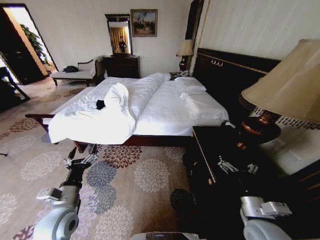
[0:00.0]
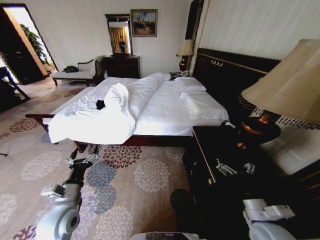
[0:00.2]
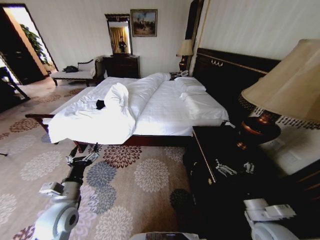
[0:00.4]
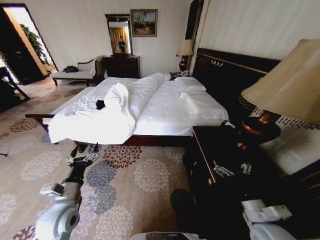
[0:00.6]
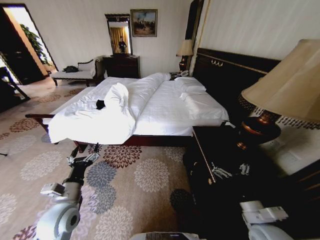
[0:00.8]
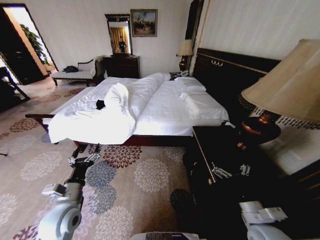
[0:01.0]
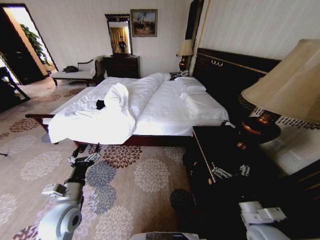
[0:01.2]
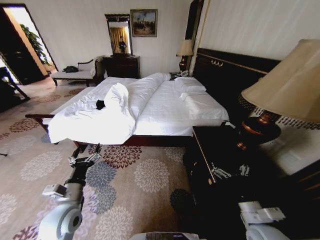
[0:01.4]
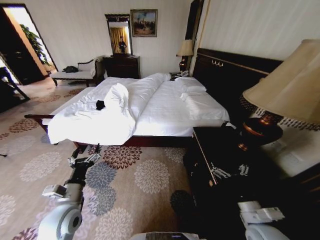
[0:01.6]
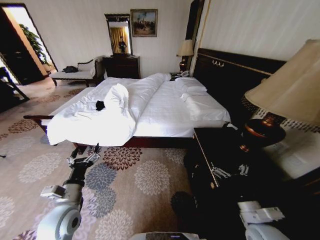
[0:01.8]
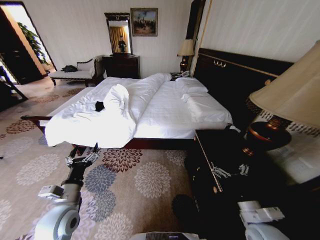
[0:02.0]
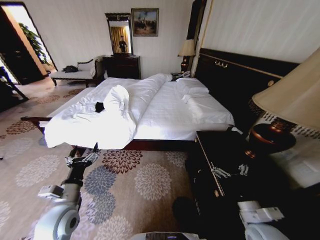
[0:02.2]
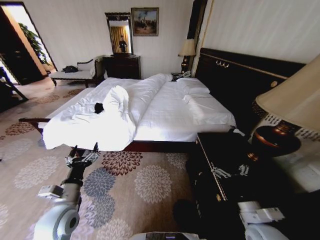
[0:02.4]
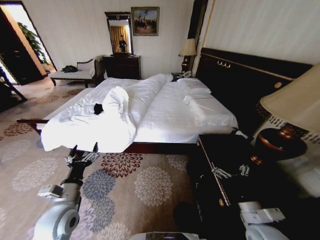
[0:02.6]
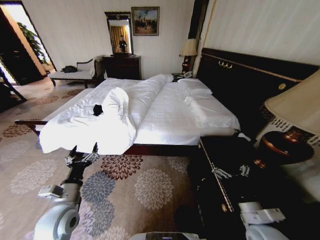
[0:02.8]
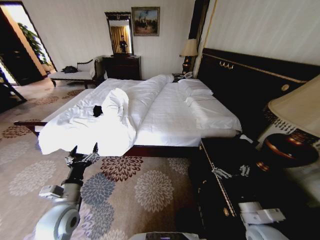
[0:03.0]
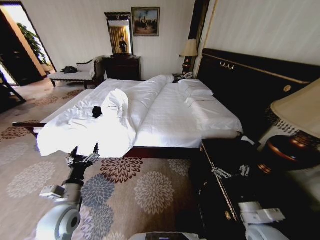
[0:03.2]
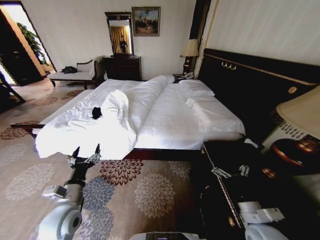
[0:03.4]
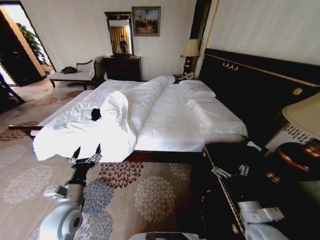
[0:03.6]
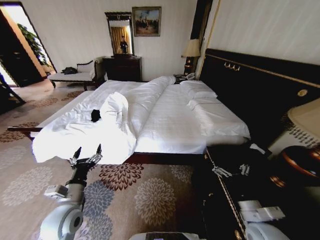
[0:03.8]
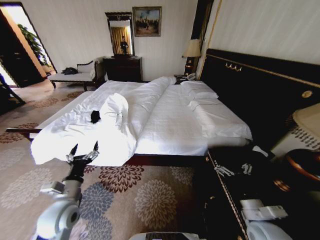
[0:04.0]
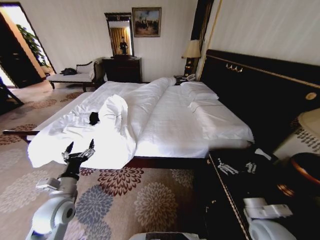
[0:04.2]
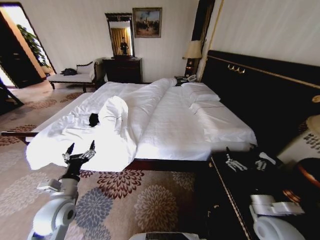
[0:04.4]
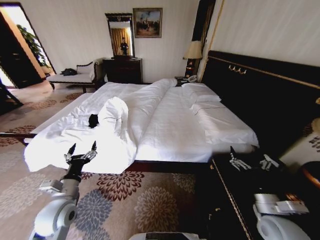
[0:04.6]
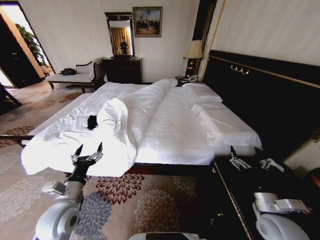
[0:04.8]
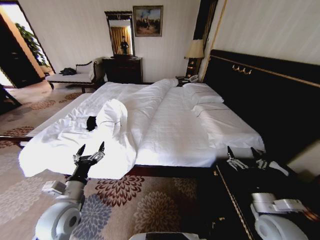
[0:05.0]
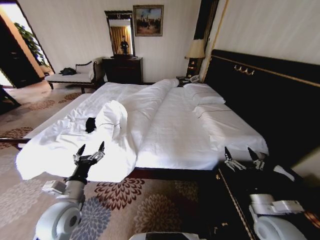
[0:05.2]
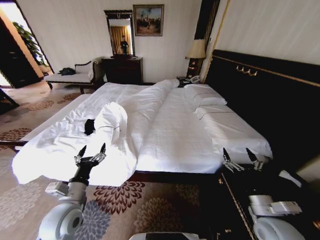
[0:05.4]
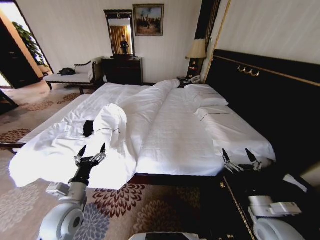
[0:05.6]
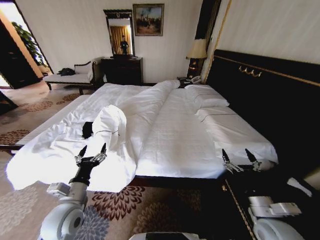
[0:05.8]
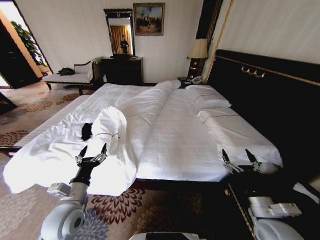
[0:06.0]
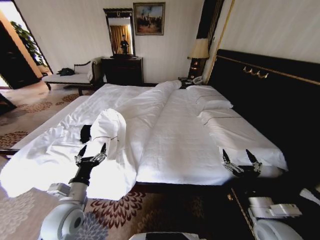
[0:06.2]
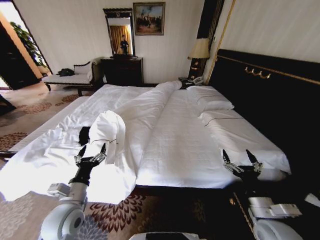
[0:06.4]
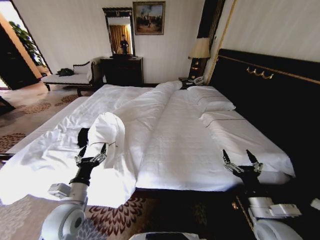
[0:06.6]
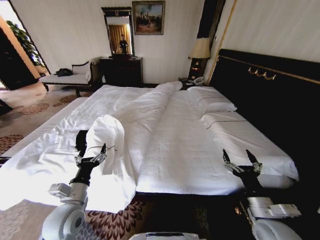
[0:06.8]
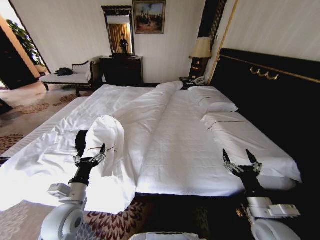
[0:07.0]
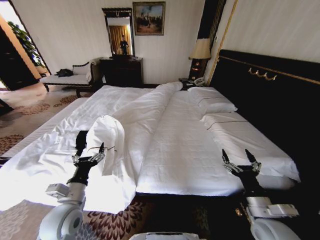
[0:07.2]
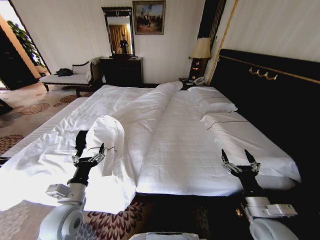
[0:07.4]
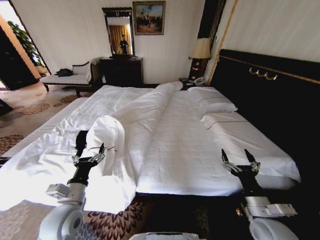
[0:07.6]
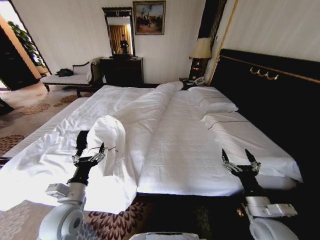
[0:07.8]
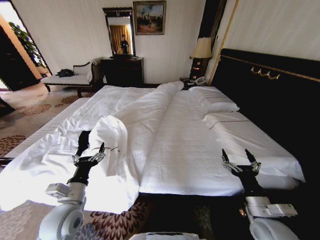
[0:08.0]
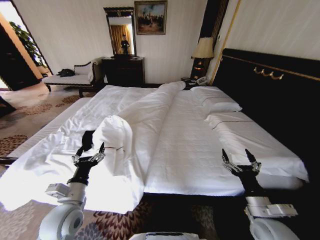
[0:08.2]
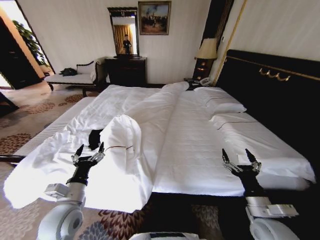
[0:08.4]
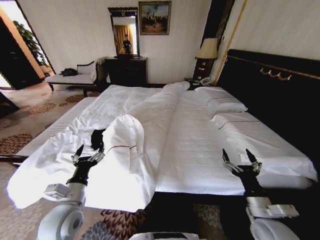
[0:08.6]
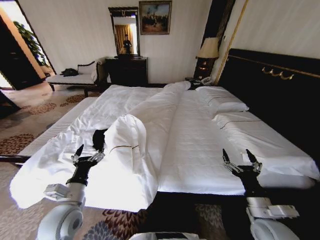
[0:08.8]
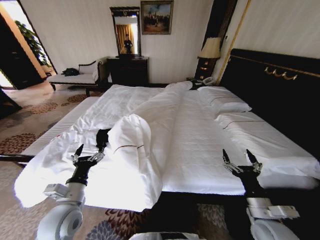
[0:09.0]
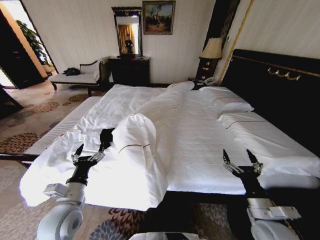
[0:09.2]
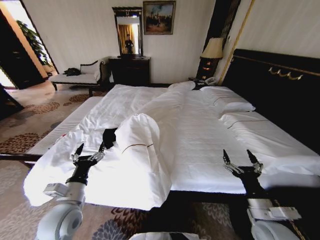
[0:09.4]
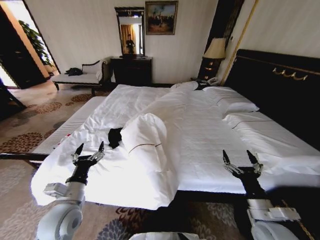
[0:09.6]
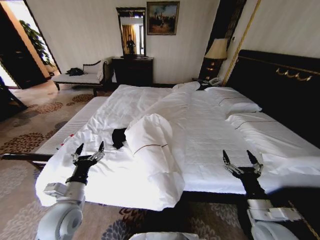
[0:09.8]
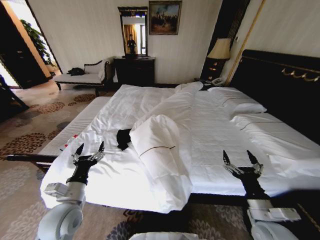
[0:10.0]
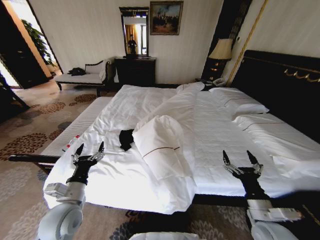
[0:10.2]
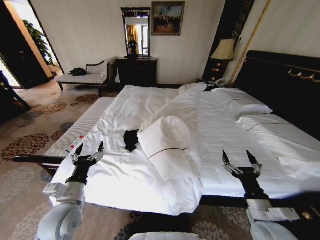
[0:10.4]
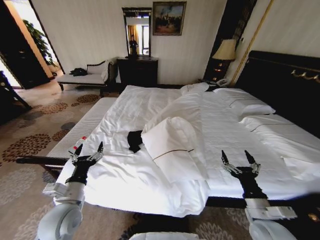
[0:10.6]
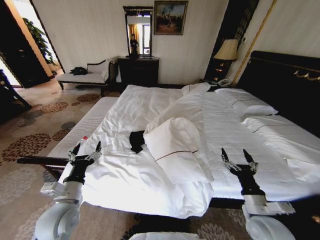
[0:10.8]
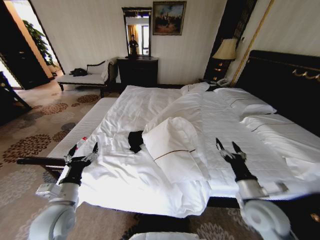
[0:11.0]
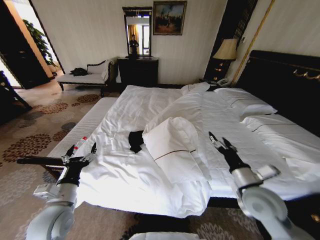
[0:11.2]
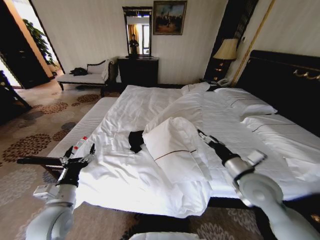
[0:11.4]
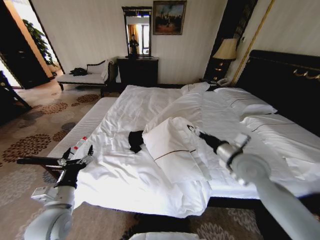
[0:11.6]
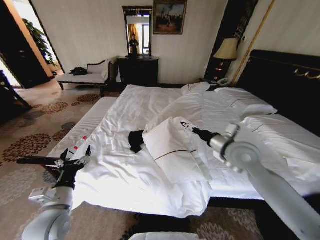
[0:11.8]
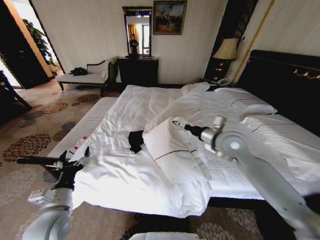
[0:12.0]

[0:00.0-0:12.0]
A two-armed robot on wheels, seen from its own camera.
Task of the whole recording: Fold the clothes on the bed.
0:10.4 to 0:12.0: The right gripper heads forward and upward, covering about 30 cm.

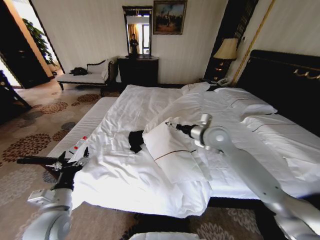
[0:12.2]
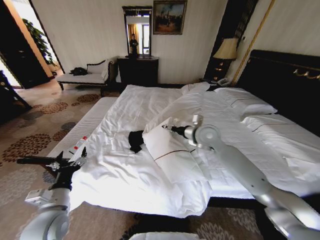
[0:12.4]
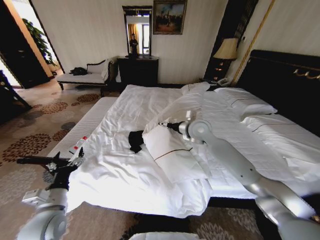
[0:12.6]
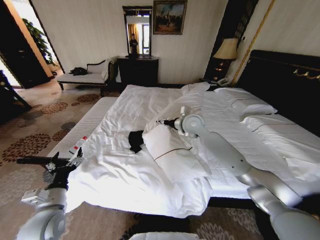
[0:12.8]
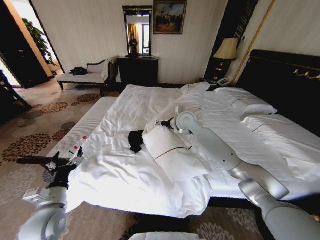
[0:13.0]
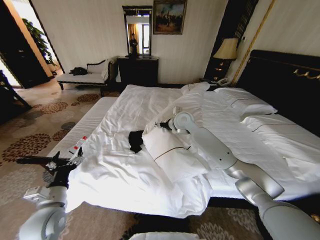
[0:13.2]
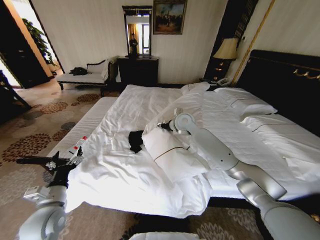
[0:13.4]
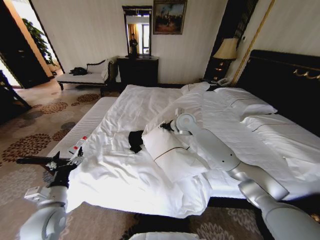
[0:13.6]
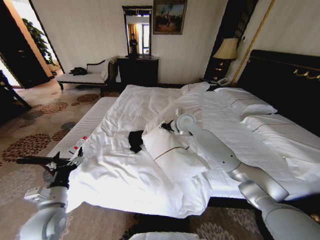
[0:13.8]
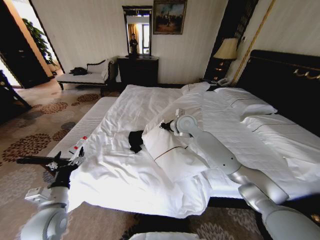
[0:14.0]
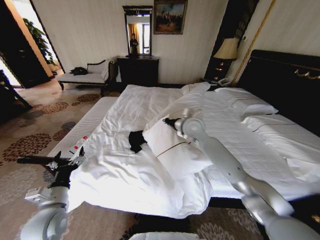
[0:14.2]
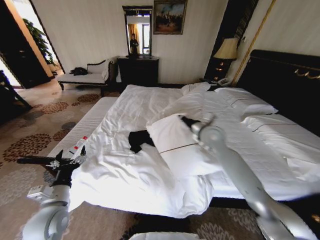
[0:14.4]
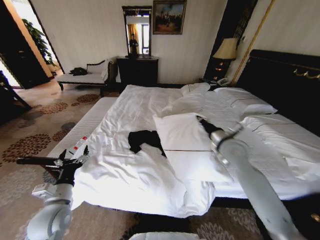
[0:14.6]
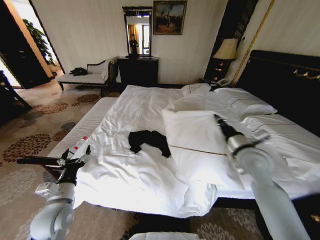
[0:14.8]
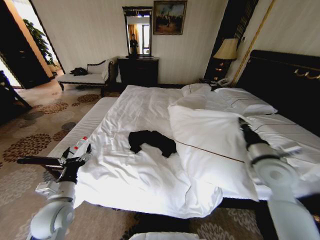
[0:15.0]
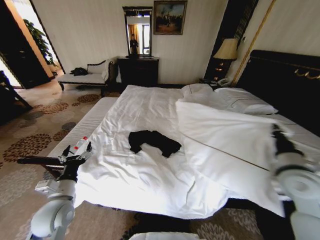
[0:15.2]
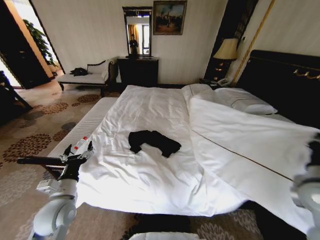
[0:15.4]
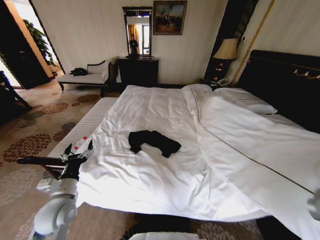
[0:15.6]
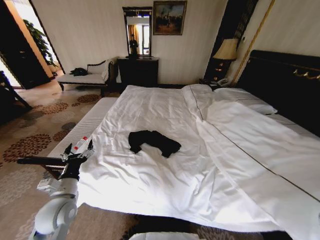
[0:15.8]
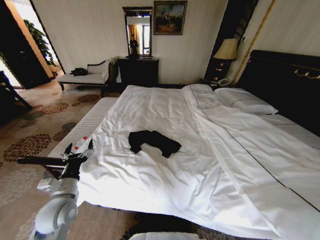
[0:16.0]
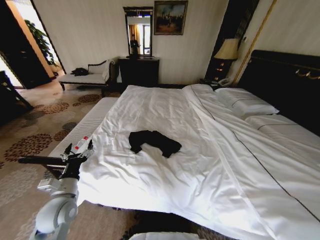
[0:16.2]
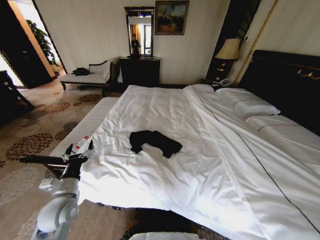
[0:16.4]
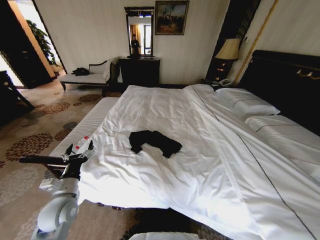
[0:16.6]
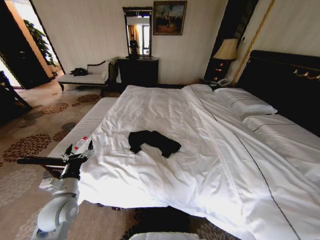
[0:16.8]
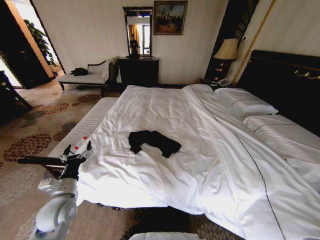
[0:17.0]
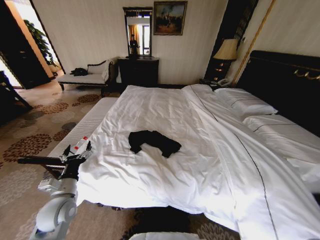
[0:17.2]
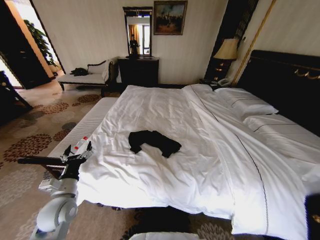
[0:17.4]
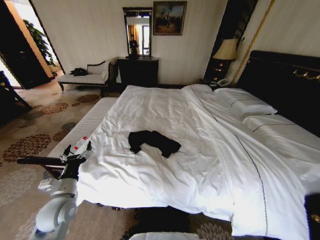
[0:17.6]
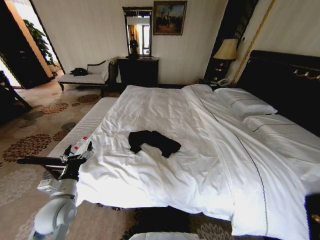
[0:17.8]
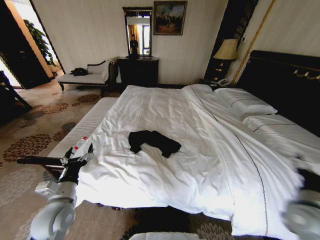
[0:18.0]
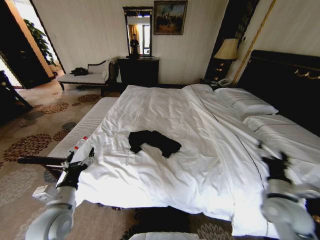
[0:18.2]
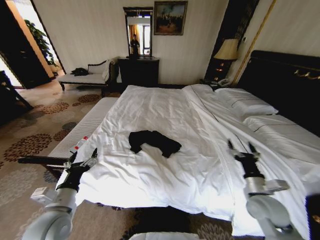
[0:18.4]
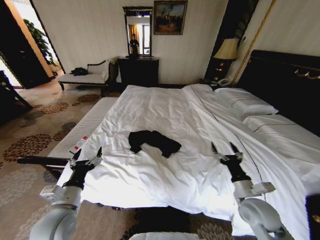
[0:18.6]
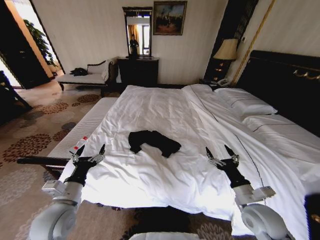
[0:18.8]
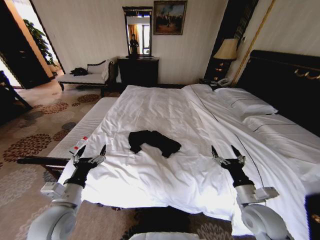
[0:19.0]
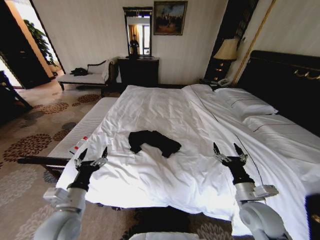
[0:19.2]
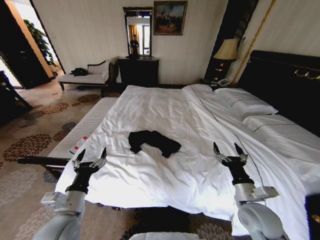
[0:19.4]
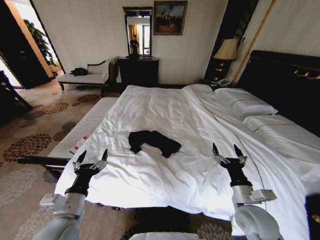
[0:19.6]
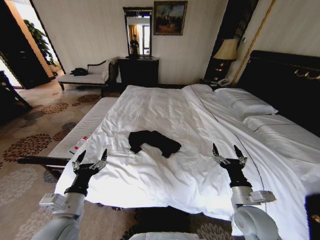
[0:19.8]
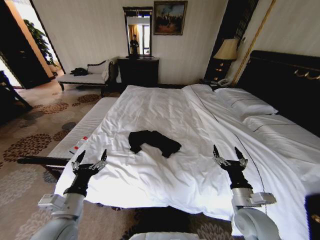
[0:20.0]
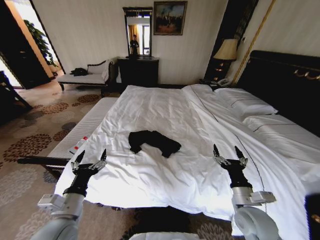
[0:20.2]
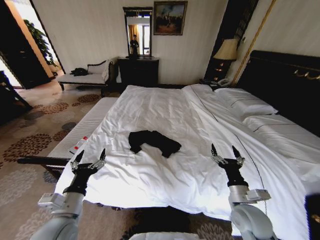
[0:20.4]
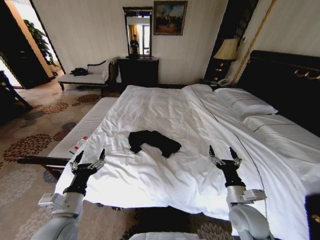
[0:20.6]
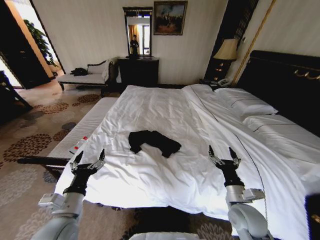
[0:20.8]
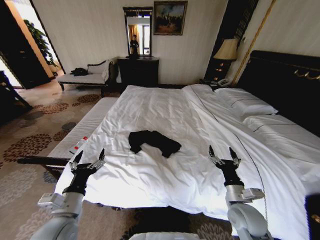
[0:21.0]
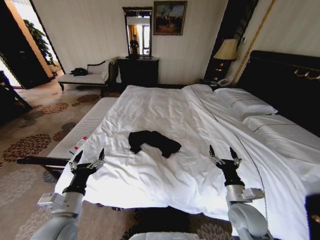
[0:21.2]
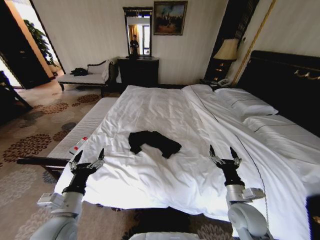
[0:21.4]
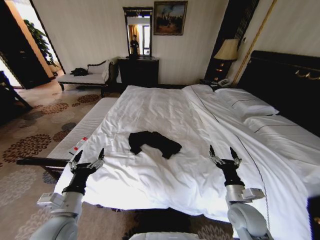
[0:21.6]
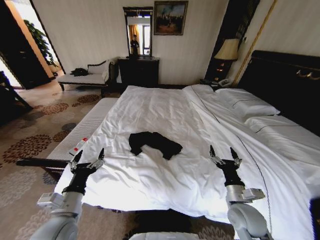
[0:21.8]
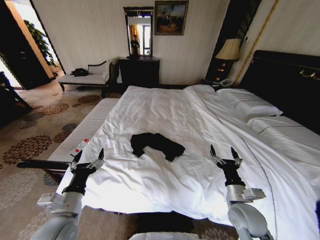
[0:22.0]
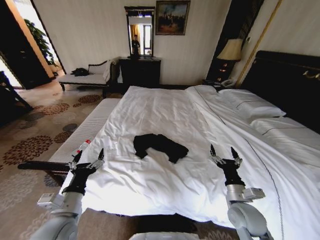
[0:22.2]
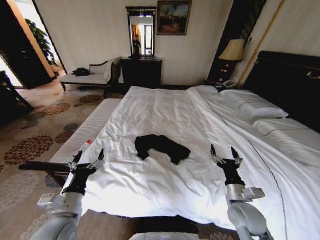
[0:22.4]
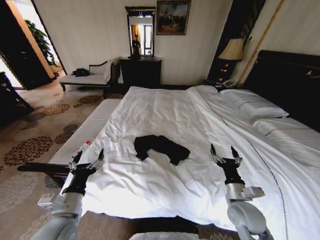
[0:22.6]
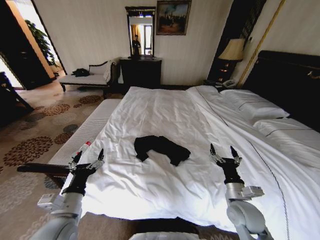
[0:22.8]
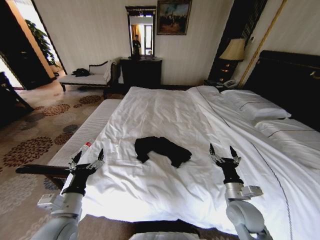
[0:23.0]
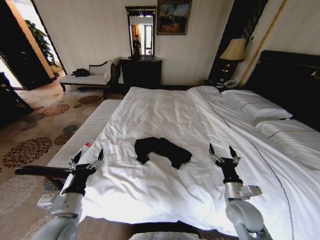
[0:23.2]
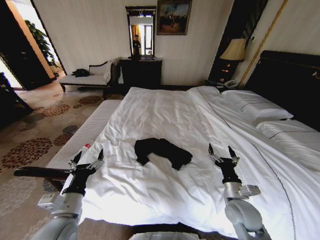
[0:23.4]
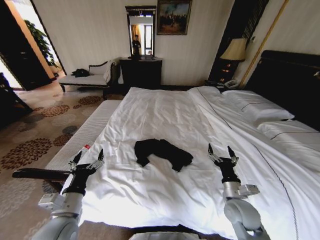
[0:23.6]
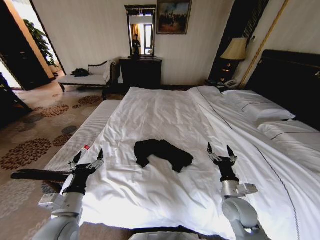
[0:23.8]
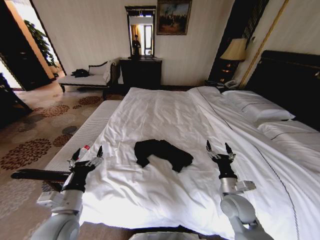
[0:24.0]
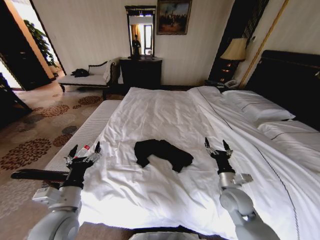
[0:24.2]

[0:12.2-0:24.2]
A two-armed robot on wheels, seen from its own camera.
Task of the whole recording: Fold the clothes on the bed.
0:12.2 to 0:13.8: The right gripper heads forward and to the left, covering about 15 cm, and closes up.
0:13.8 to 0:15.2: The right gripper goes some 40 cm to the right and backward.
0:15.2 to 0:16.6: The right gripper goes about 30 cm downward, backward and to the right.
0:16.6 to 0:18.2: The right gripper heads to the left, forward and upward, covering approximately 20 cm, and opens its fingers.
0:18.2 to 0:19.8: The left gripper ends up about 5 cm from where it was, while the right gripper heads to the left, covering about 10 cm.
0:19.8 to 0:21.2: The grippers make only small movements.
